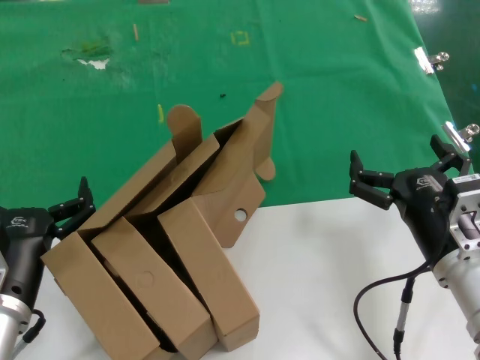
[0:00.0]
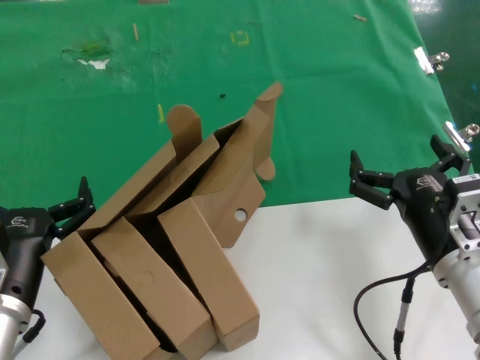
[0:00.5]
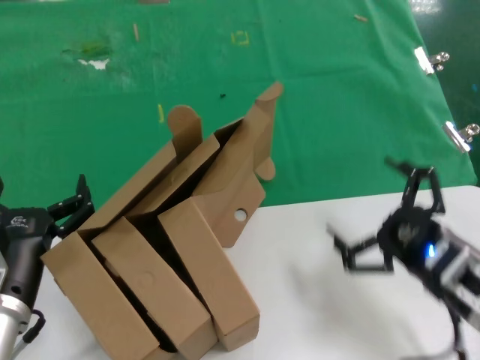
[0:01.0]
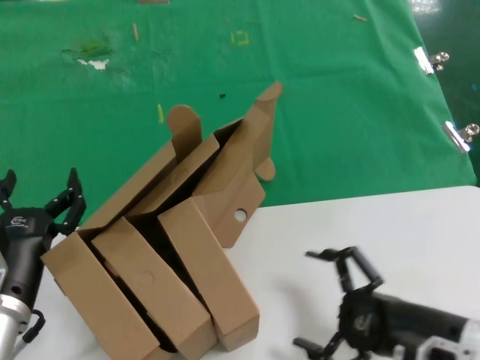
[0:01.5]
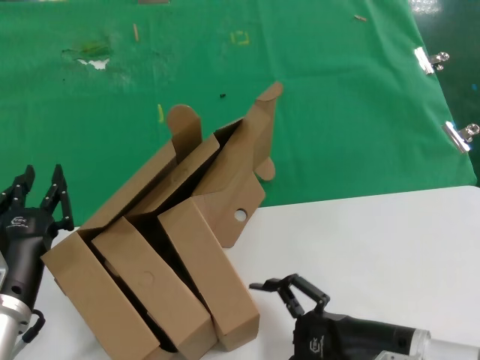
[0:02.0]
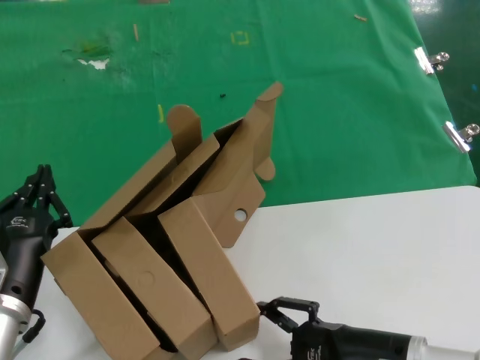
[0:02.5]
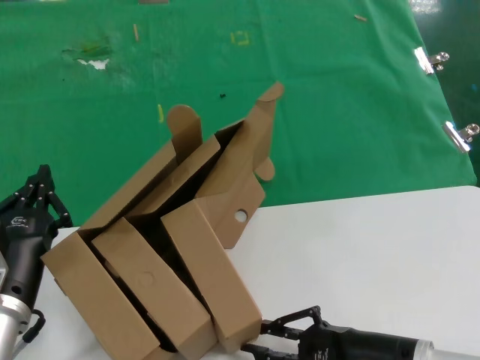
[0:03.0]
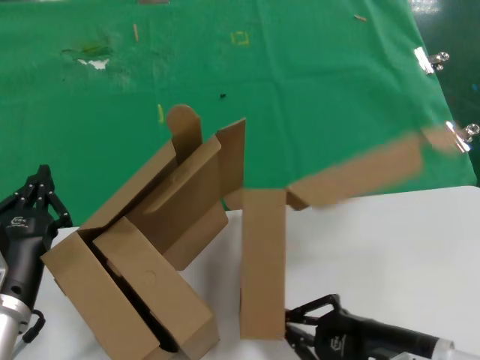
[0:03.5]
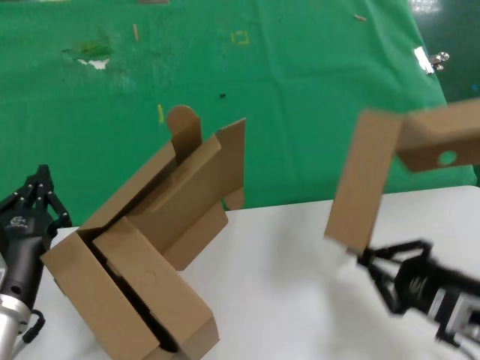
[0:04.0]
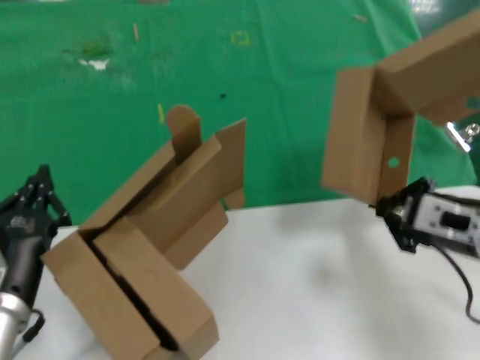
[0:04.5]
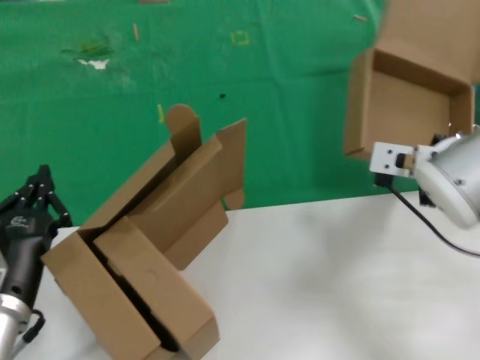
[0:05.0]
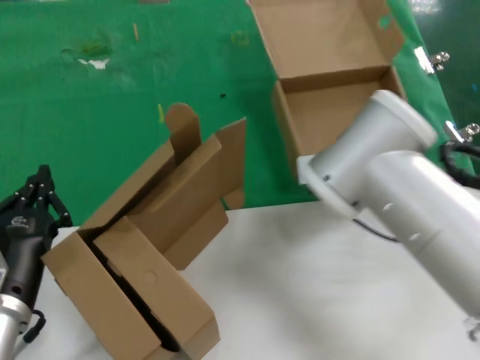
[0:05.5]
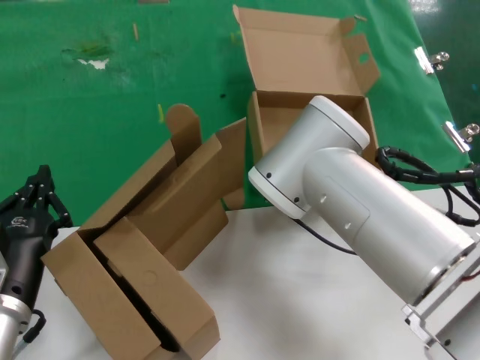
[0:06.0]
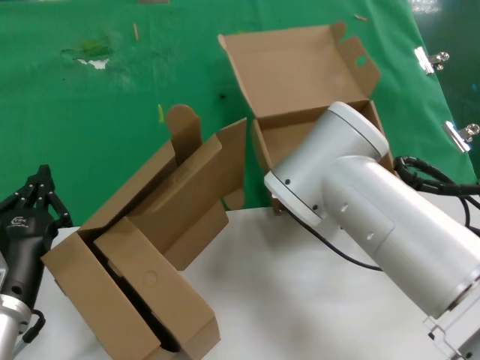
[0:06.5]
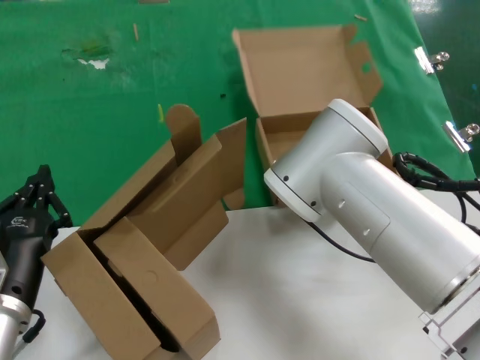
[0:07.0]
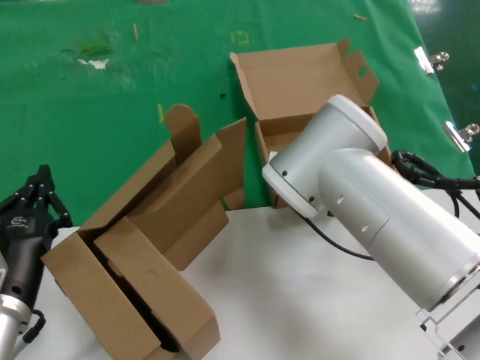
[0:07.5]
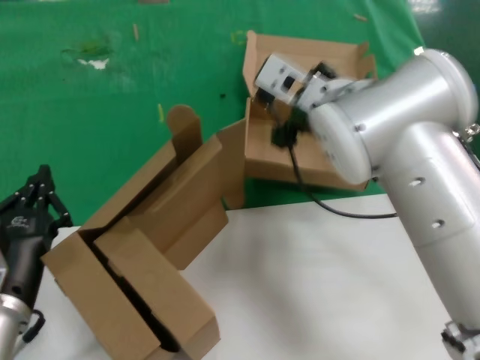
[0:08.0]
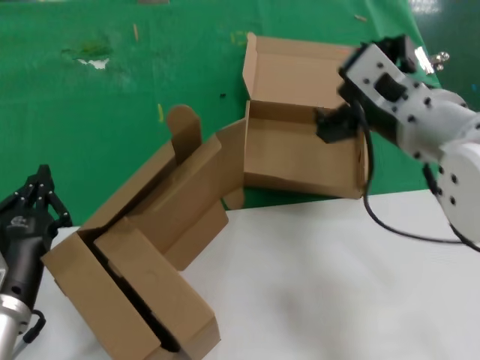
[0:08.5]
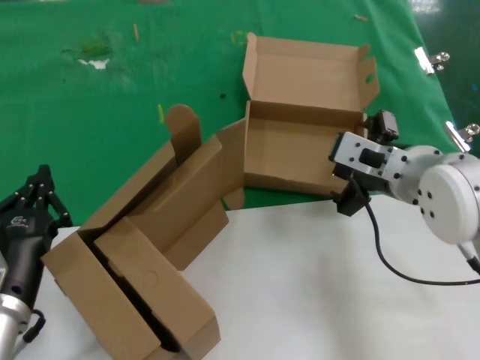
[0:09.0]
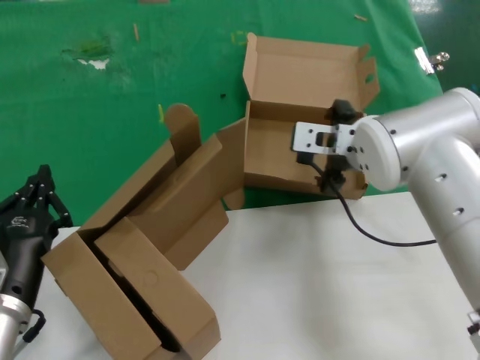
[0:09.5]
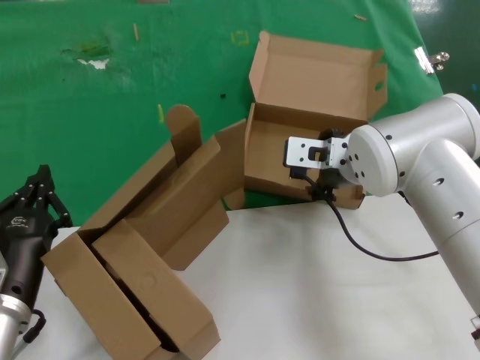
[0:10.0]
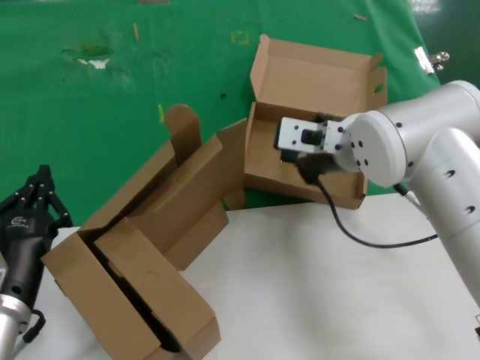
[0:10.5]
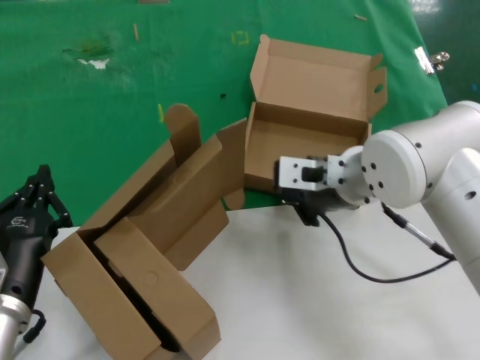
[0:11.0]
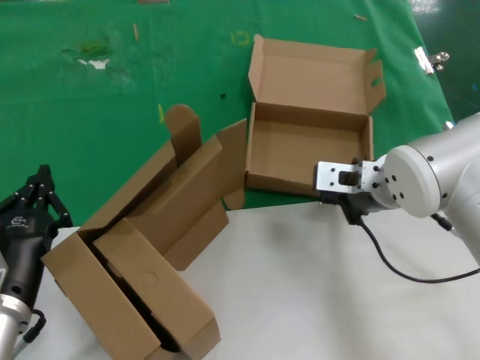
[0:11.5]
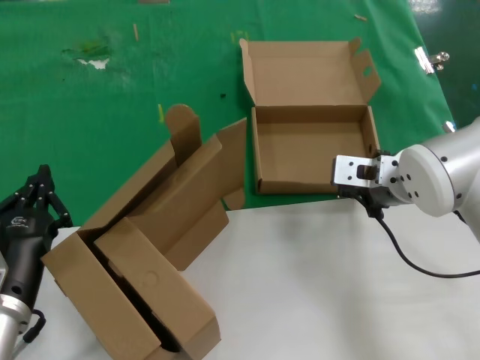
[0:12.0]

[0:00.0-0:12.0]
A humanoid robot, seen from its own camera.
Task of the whole recording: pick up the paper box and put it at the back.
Step, 0:00.0 to 0:03.0: Grasp the paper box.
Step, 0:03.5 to 0:07.5: Place the paper box on the table.
0:00.0 to 0:02.0: The right hand heads downward, covering some 5 cm.
0:02.0 to 0:04.0: The right hand travels to the right and upward by some 10 cm.
0:04.0 to 0:06.0: The right hand is displaced forward and to the left by approximately 35 cm.
0:06.0 to 0:08.0: The right hand heads upward, covering about 10 cm.
0:08.0 to 0:10.0: The right hand moves downward and to the right, roughly 10 cm.
0:10.0 to 0:12.0: The right hand heads to the right, covering some 5 cm.

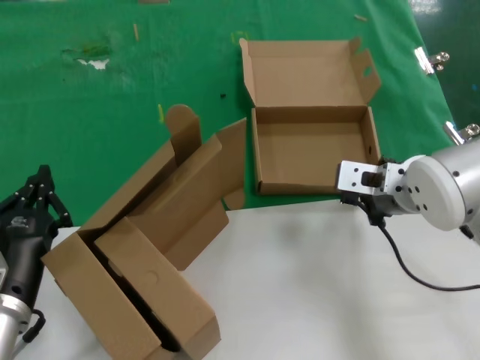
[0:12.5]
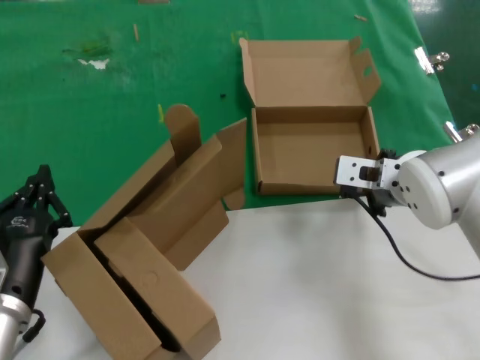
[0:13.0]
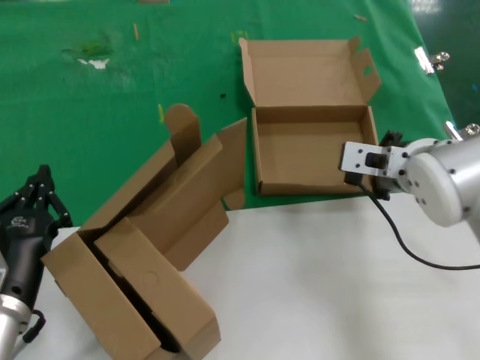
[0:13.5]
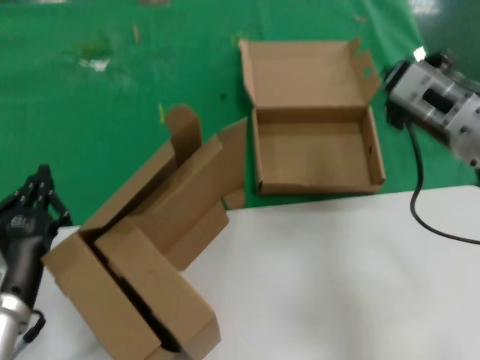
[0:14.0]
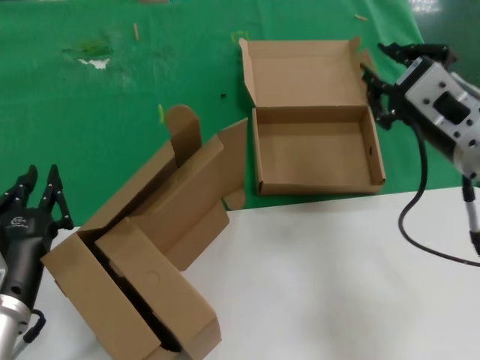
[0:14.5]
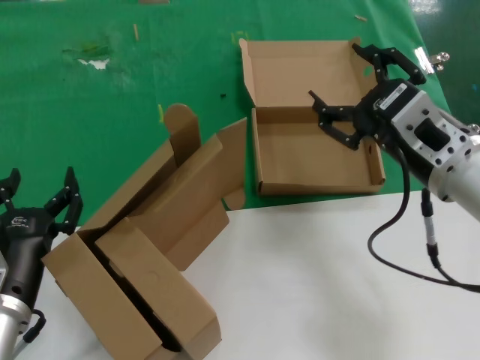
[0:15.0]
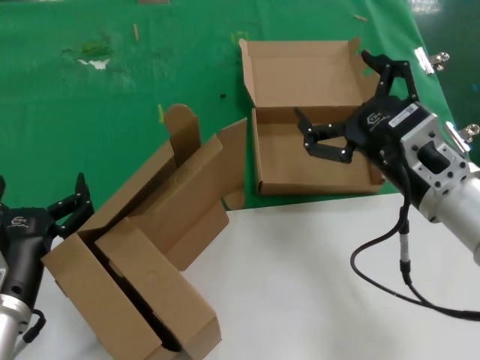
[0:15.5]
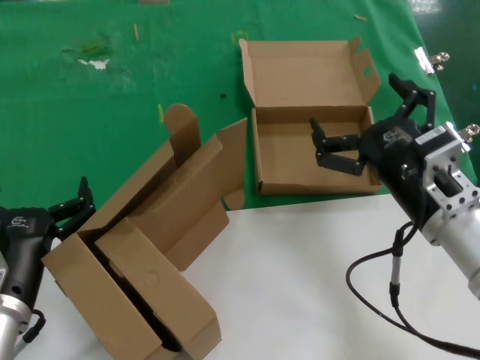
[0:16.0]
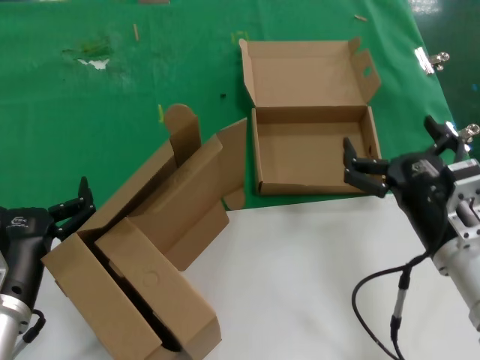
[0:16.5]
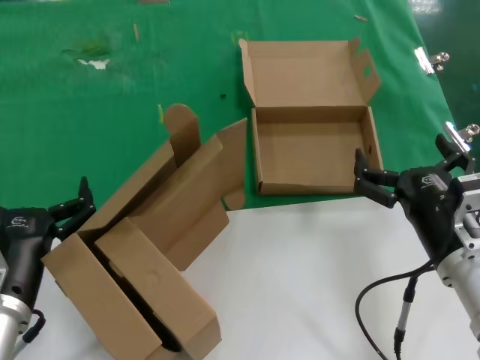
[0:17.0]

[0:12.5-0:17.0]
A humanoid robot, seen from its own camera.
Task of the whole recording: pick up the paper box and put it at the back.
0:12.5 to 0:14.5: The right hand travels backward and upward by about 10 cm.
0:14.5 to 0:17.0: The right hand is displaced downward by about 20 cm.
